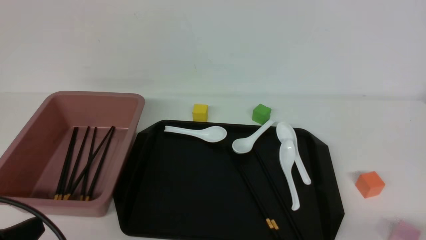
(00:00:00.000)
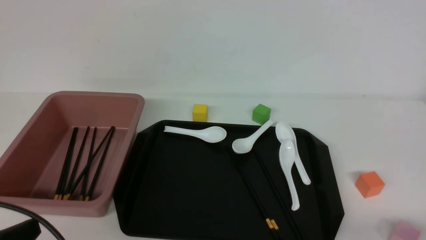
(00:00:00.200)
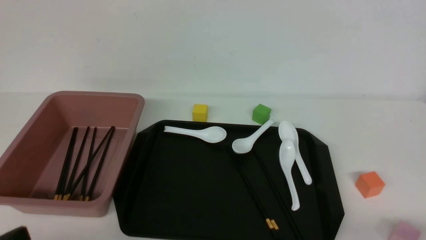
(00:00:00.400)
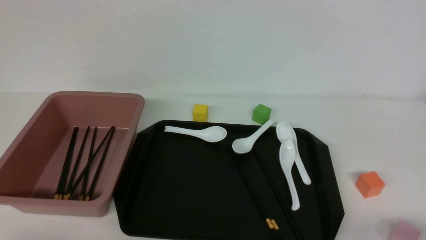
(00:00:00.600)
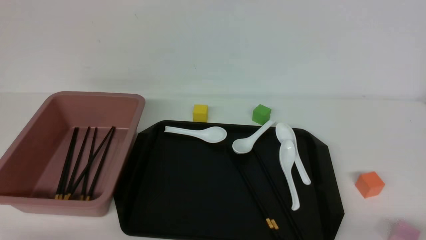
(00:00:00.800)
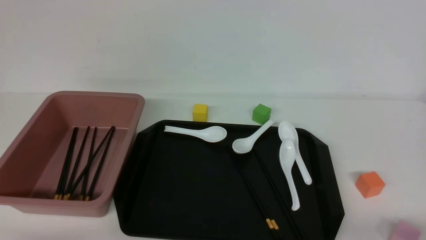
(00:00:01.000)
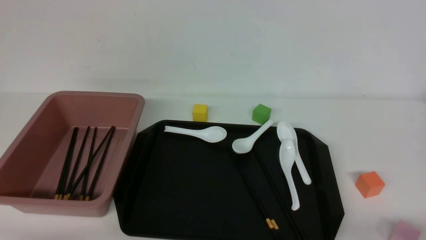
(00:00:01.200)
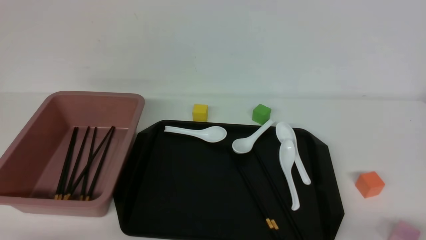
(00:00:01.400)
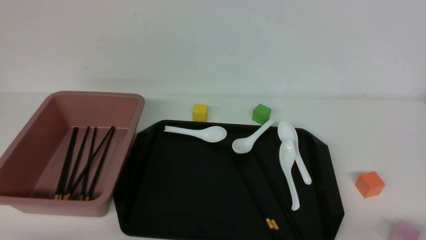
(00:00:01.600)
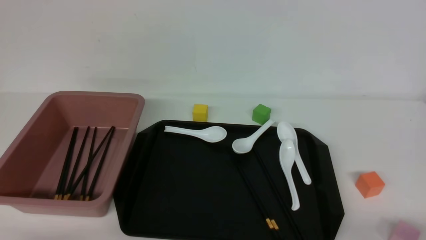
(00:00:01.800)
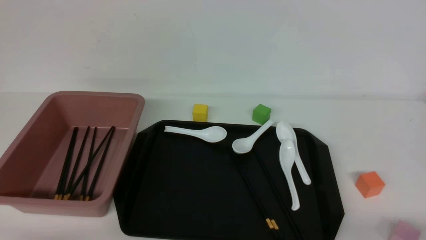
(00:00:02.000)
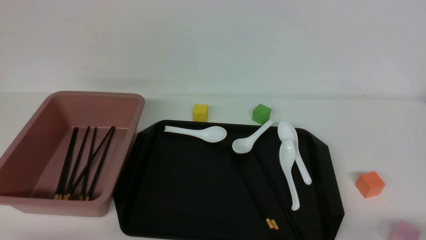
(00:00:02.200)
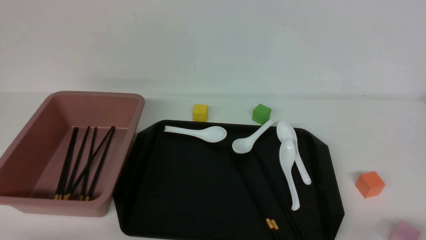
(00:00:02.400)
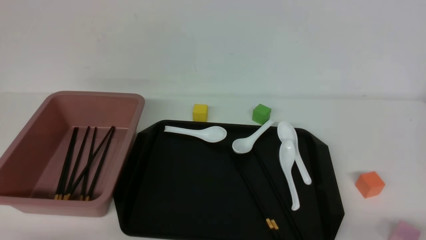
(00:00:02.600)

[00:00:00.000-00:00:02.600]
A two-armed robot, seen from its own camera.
00:00:00.000 to 00:00:01.200: The left gripper is displaced downward by approximately 5 cm.
00:00:01.200 to 00:00:02.600: The two grippers keep their place.
